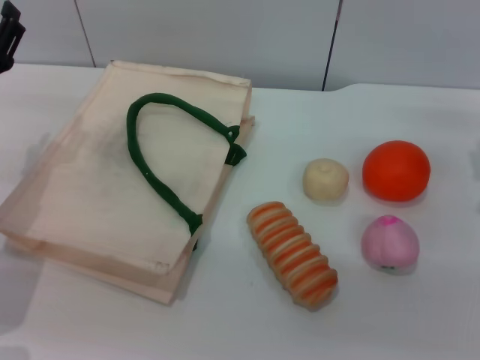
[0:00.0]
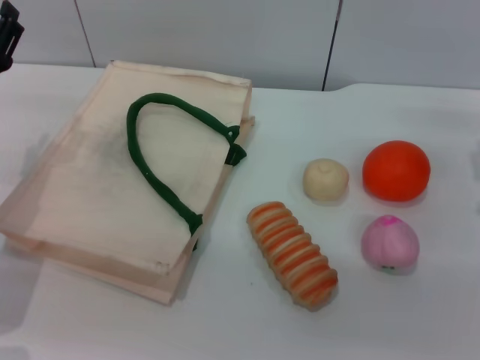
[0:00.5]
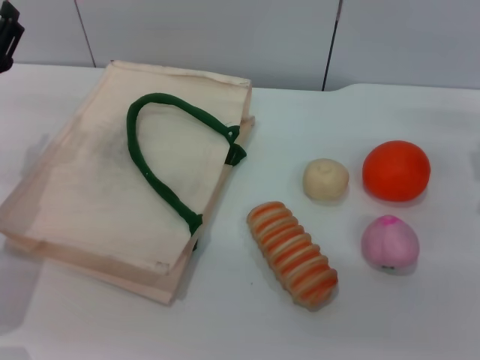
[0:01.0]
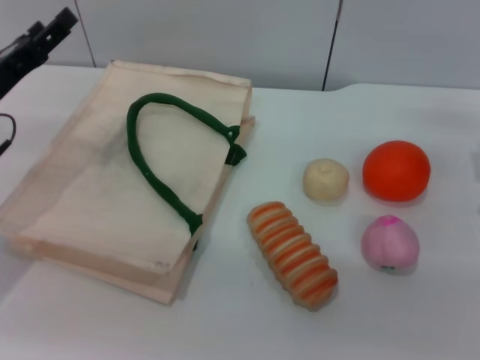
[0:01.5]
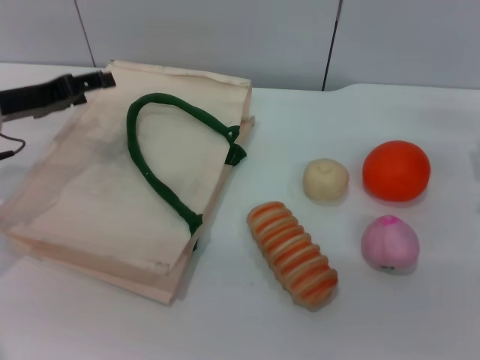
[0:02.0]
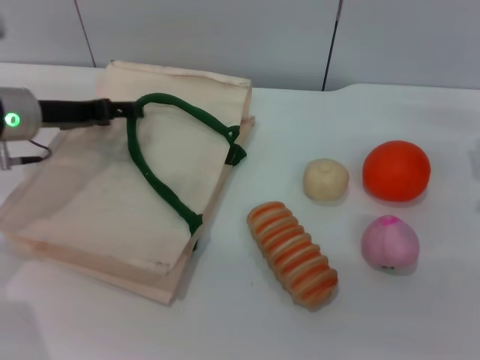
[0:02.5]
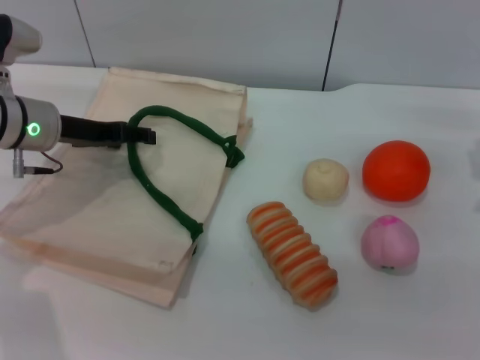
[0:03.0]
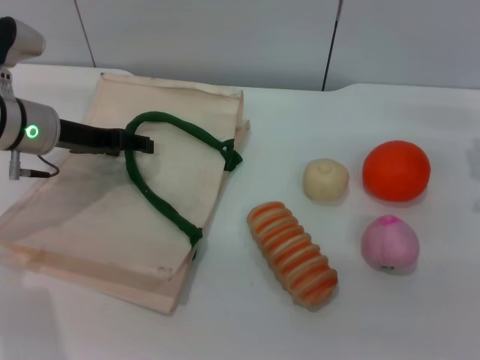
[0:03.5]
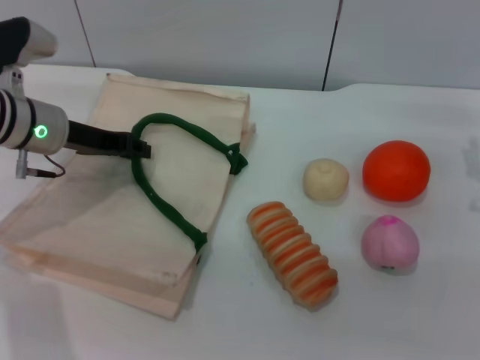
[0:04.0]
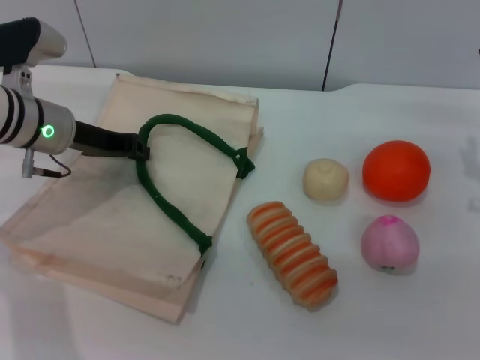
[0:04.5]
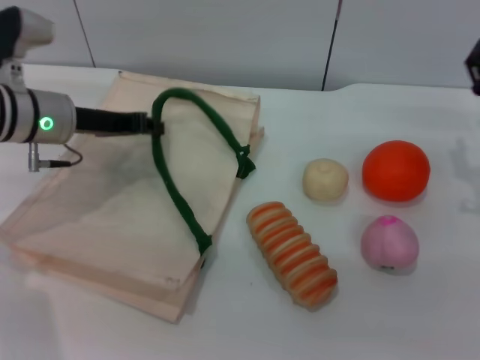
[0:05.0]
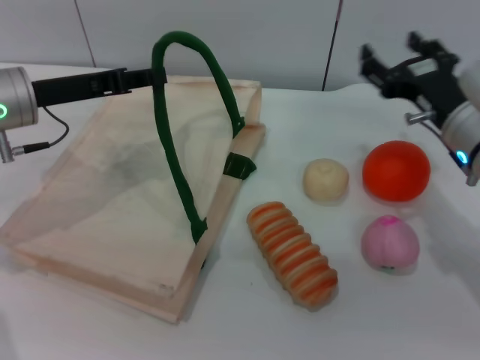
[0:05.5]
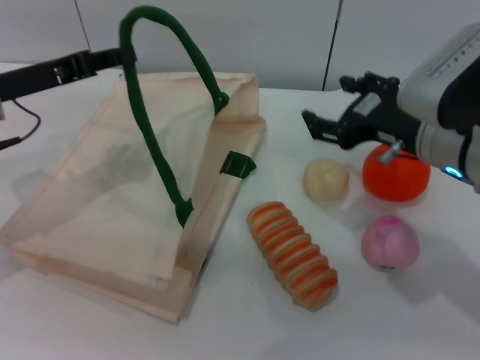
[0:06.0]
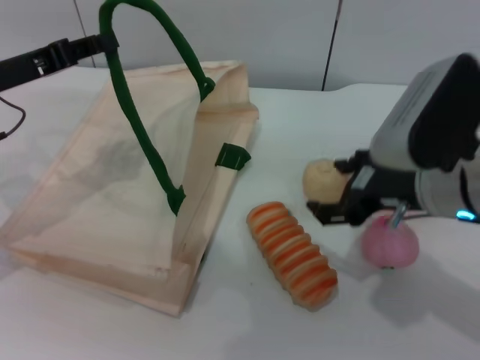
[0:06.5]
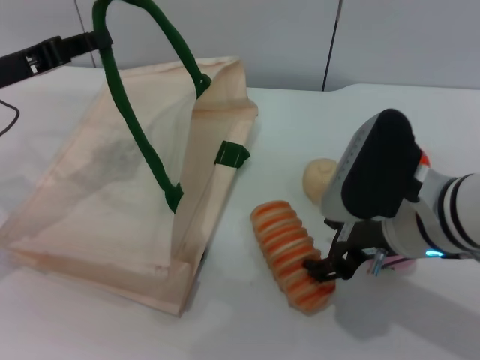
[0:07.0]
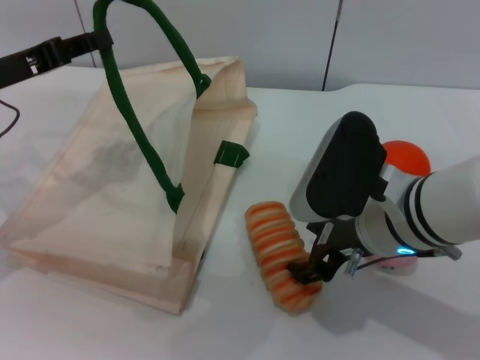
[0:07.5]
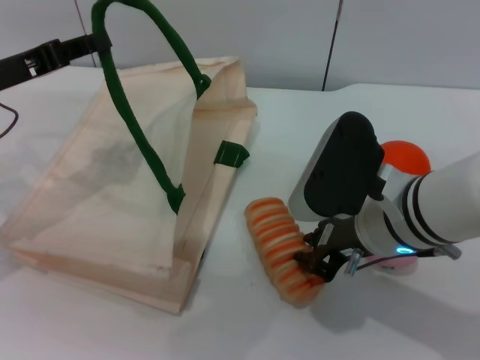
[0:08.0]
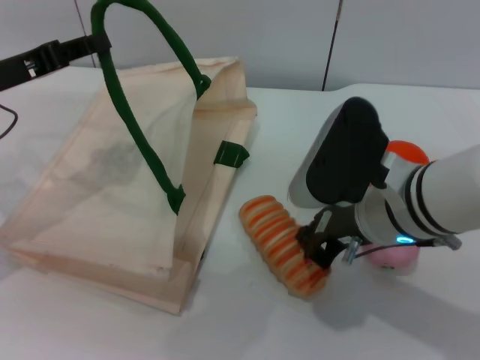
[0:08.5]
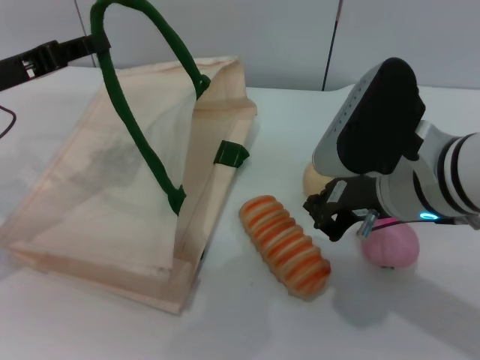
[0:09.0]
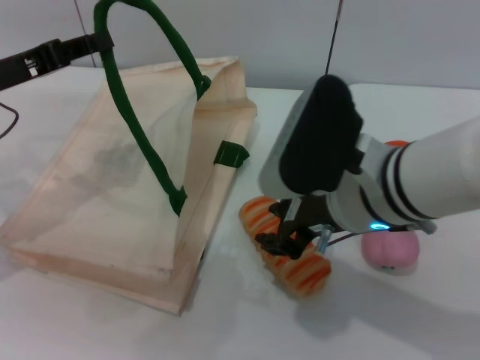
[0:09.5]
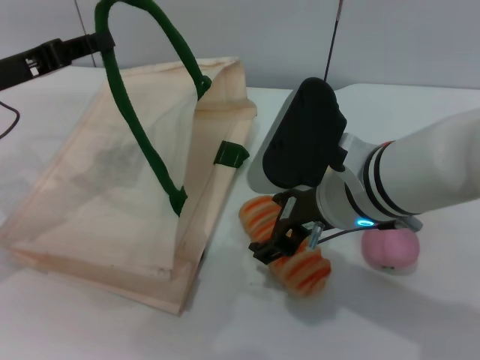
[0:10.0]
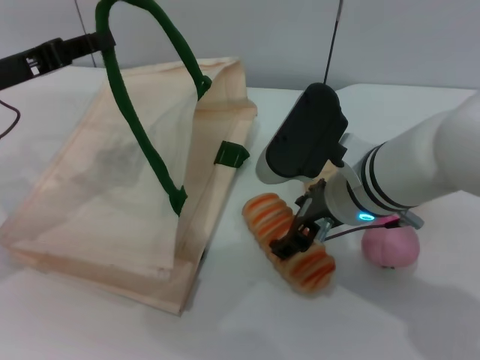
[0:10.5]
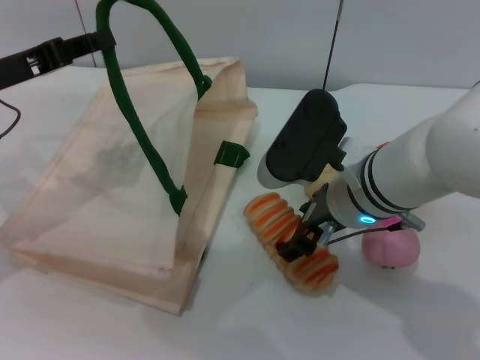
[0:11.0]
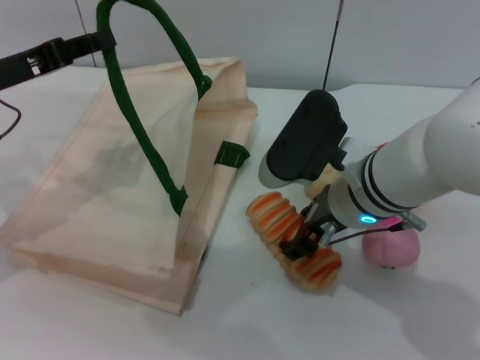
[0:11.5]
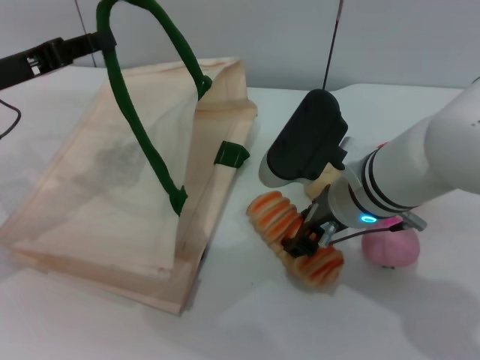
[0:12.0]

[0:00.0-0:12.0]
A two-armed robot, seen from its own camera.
Task of the whole recording: pick up the bread and egg yolk pastry from the table and place it in the white handbag.
Step, 0:00.0 to 0:04.5: Lift the woven bag with the left gripper to open it.
0:00.0 to 0:02.0: The left gripper is displaced forward by roughly 5 cm.
0:02.0 to 0:04.0: The left gripper heads to the right, covering approximately 5 cm.
0:04.0 to 0:06.0: The left gripper moves roughly 5 cm, and closes up, while the right gripper goes about 10 cm to the left and upward.
0:06.0 to 0:08.0: The right gripper goes about 5 cm to the left.
0:08.0 to 0:10.0: The right gripper opens up.
0:10.0 to 0:12.0: The grippers move only a little.

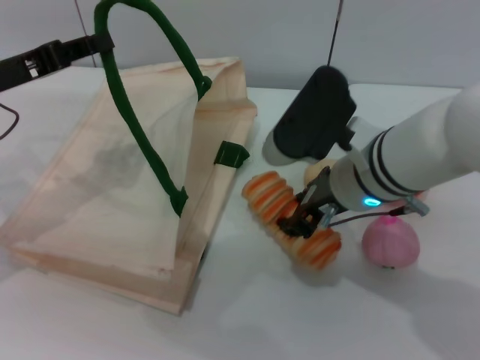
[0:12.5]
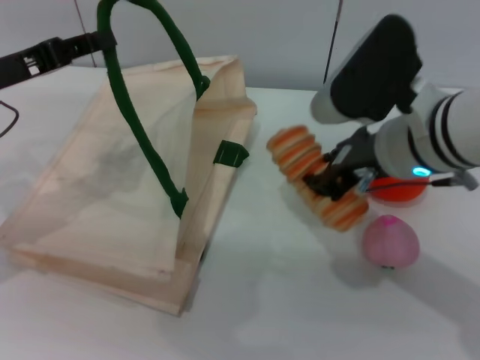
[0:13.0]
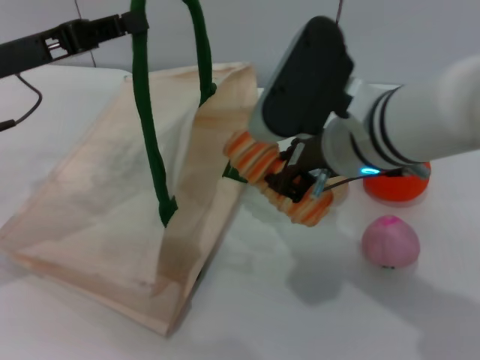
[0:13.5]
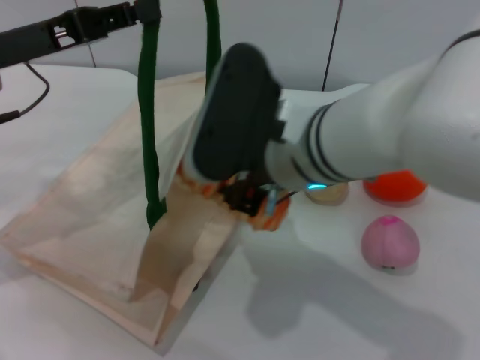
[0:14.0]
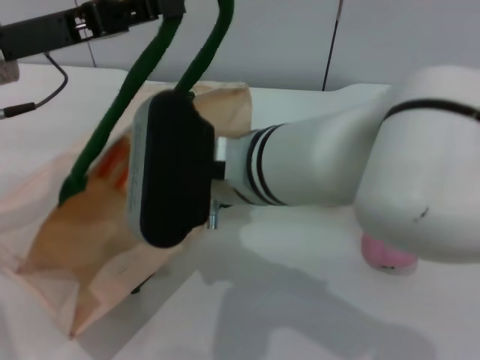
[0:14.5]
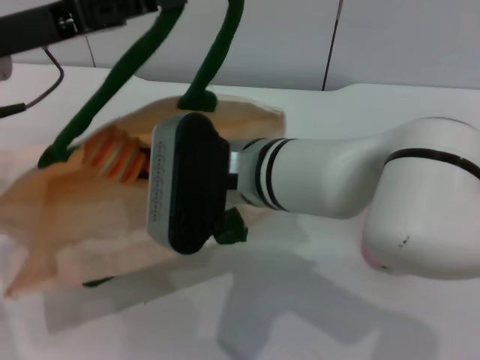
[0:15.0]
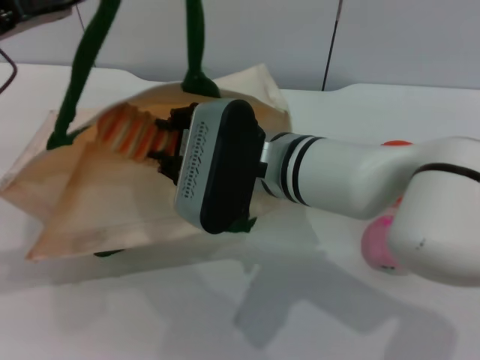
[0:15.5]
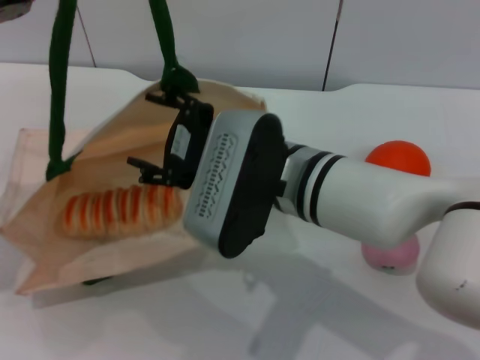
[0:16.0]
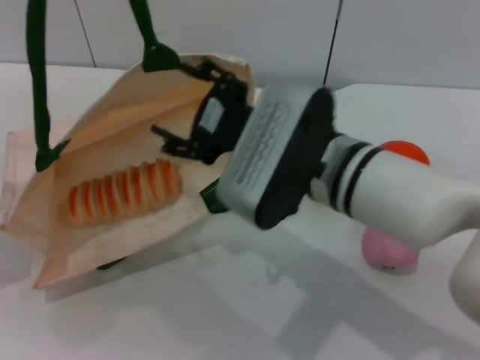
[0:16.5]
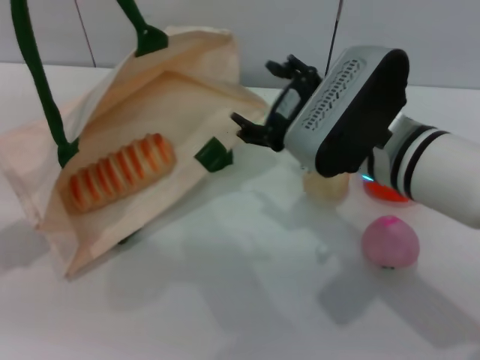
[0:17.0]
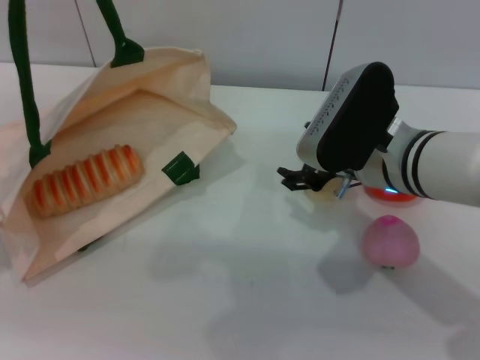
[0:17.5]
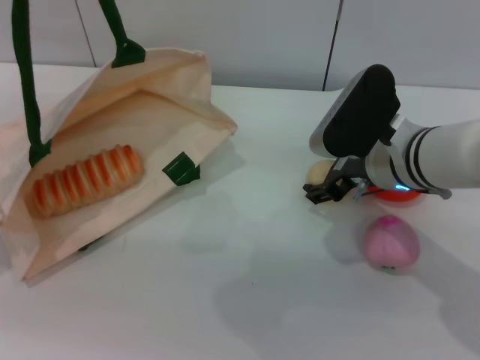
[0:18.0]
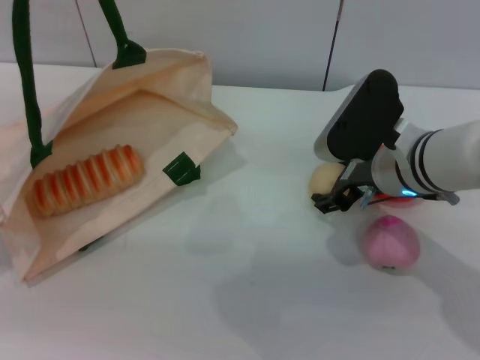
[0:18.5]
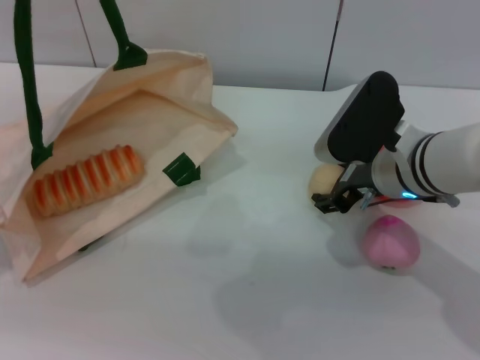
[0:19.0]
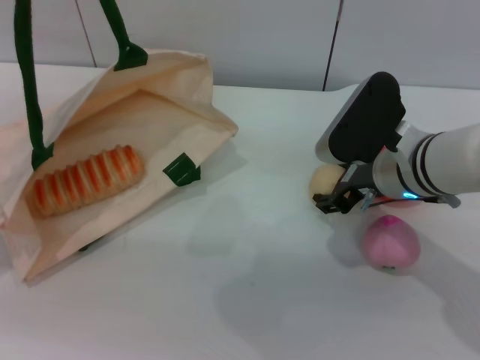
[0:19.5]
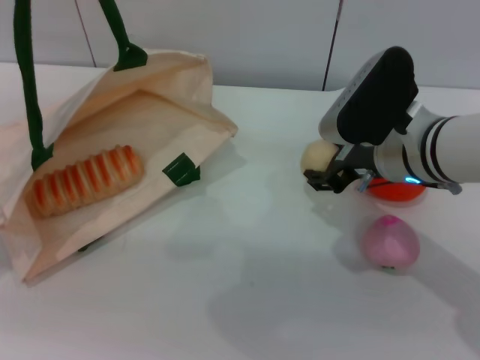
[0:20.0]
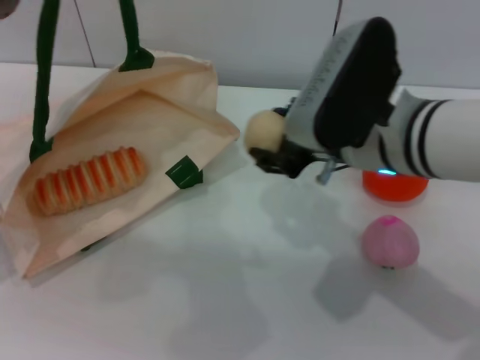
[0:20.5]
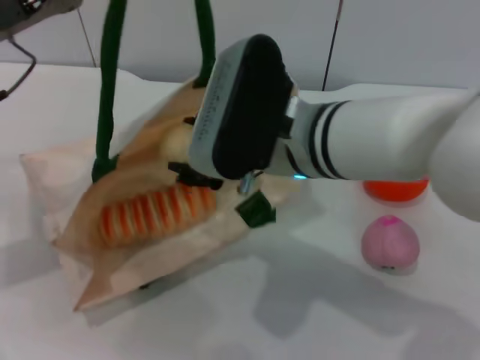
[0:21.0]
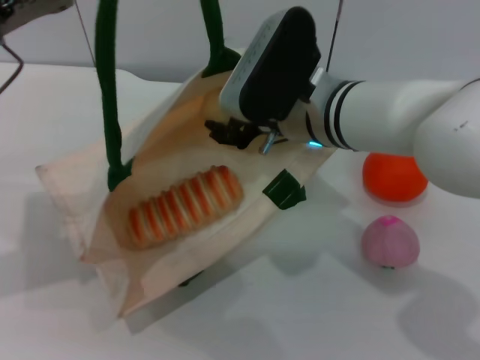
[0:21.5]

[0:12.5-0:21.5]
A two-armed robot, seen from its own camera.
Task of the whole recording: pick up the bread and egg yolk pastry from the table and place it in the white handbag.
Step, 0:13.5 to 0:16.5: Place the bread into the woven bag with the right gripper.
Step, 0:17.0 to 0:20.5: Pick up the egg yolk pastry with the right gripper.
0:12.5 to 0:14.5: The left gripper shifts some 5 cm to the right. The right gripper goes approximately 10 cm to the left.
0:14.5 to 0:17.0: The left gripper is displaced to the left by roughly 10 cm. The right gripper shifts roughly 10 cm to the right, and opens its fingers.
0:17.0 to 0:19.5: The right gripper is displaced downward by roughly 5 cm.
0:19.5 to 0:21.5: The left gripper shifts roughly 5 cm to the right. Meanwhile the right gripper travels to the left and upward by roughly 10 cm.

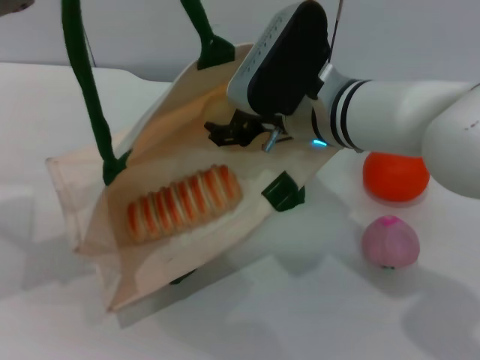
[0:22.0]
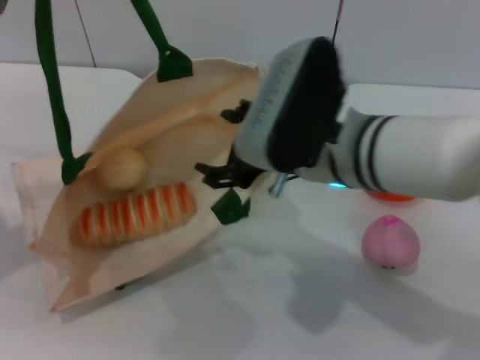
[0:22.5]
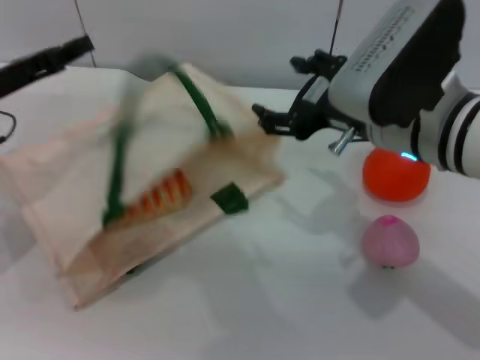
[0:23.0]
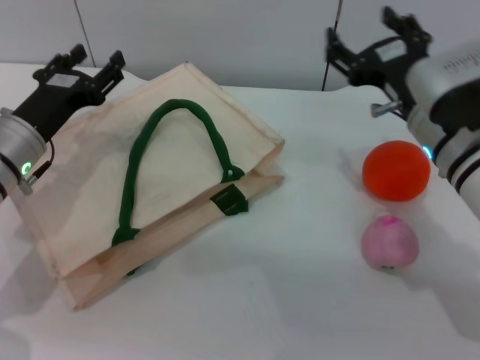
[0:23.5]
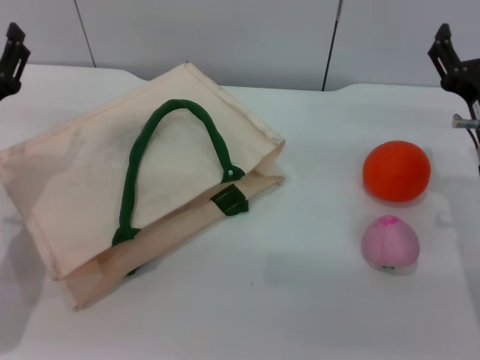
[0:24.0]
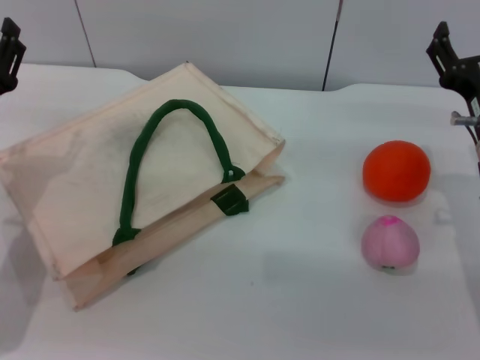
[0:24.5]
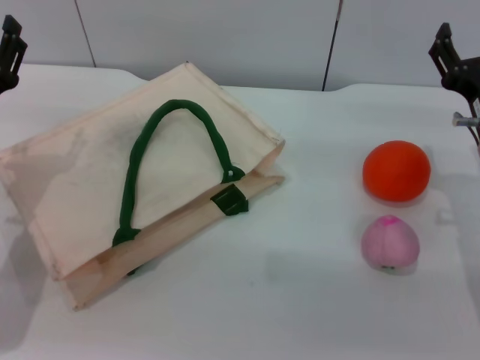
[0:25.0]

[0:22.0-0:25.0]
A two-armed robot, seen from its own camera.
Task of the whole recording: pick up the bread and egg yolk pastry from the table and place it in the white handbag.
Step, 0:23.0 to 0:23.5: Lower the woven bag with the left gripper to close it.
0:22.0 to 0:23.5: The left gripper heads downward, covering roughly 15 cm, and opens its fingers. The right gripper heads to the right, covering some 10 cm.
0:23.5 to 0:25.0: The right gripper is displaced to the right by roughly 5 cm.

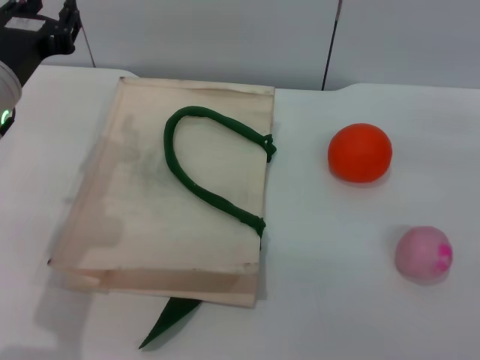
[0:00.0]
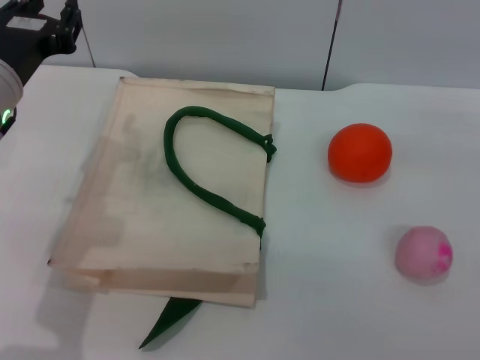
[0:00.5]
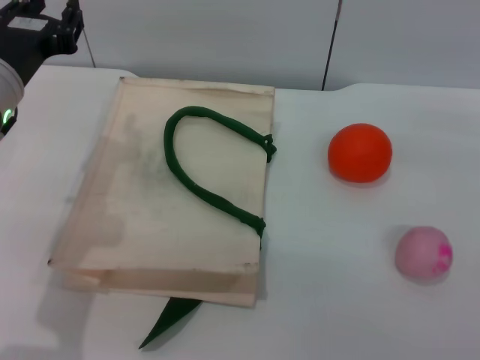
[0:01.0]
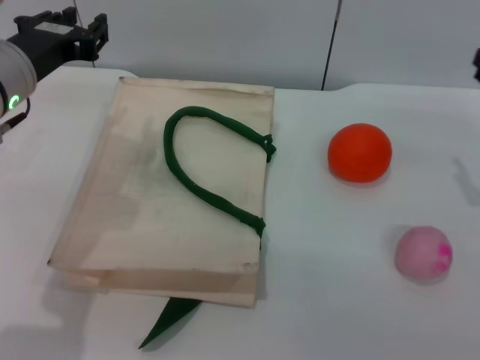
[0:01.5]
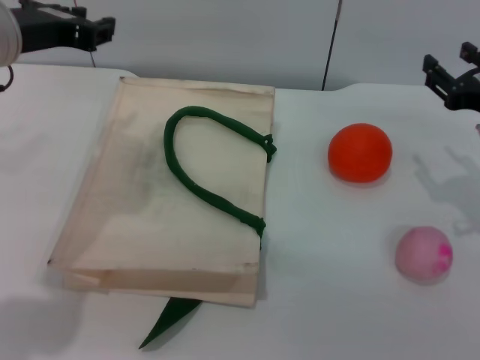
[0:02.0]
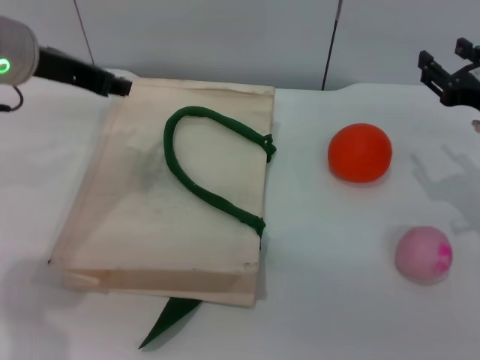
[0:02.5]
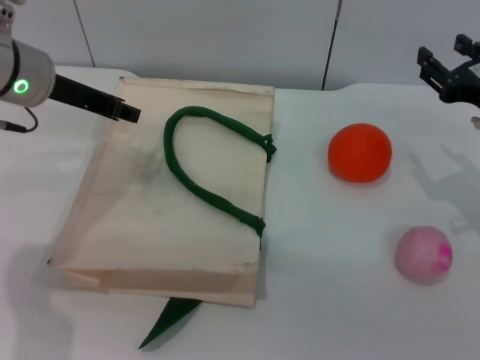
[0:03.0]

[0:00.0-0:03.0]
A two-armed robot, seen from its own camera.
Task of the whole recording: pick up the orange and peach from the table and place it in the white handbag.
0:00.0 to 0:01.5: The grippers move only a little.
